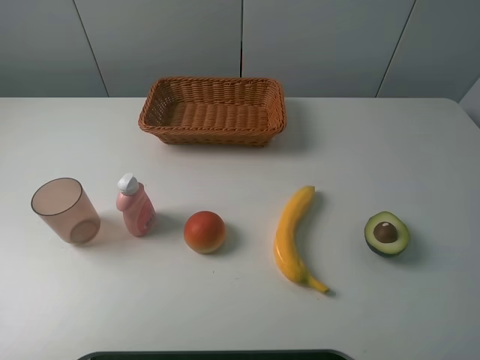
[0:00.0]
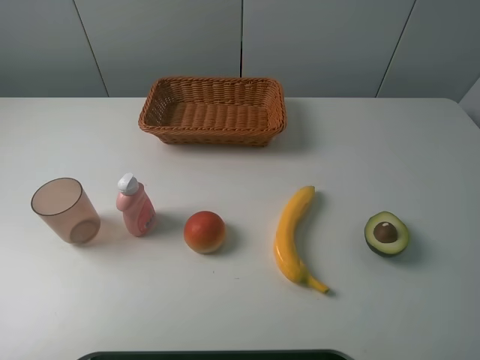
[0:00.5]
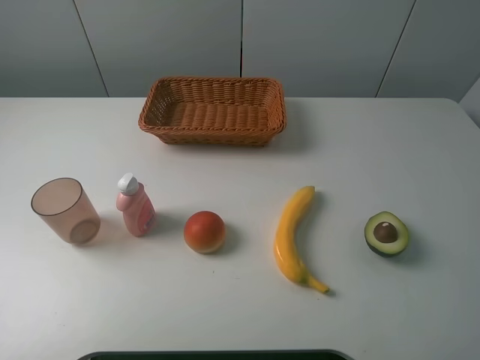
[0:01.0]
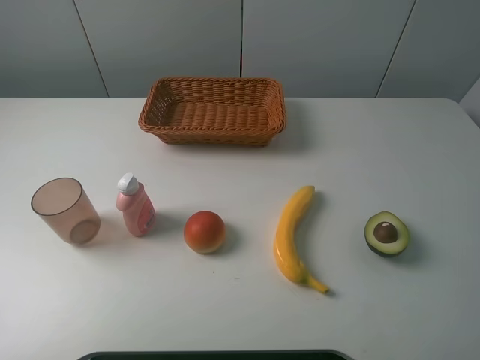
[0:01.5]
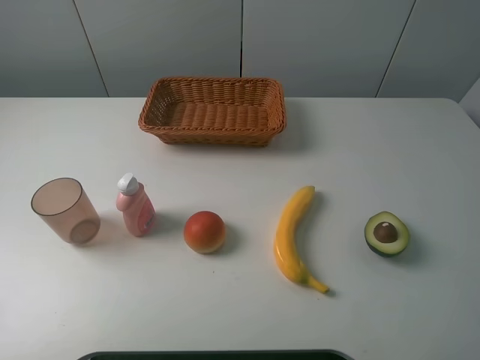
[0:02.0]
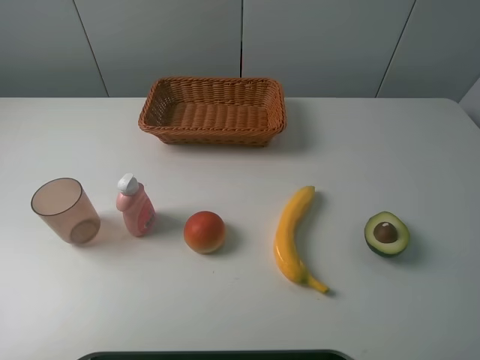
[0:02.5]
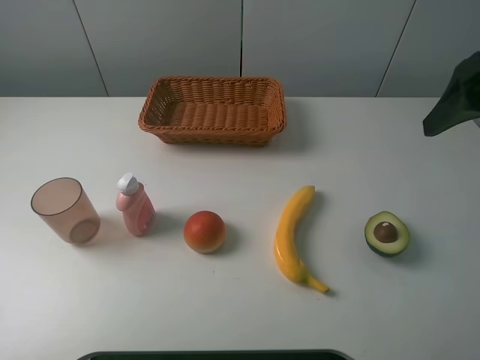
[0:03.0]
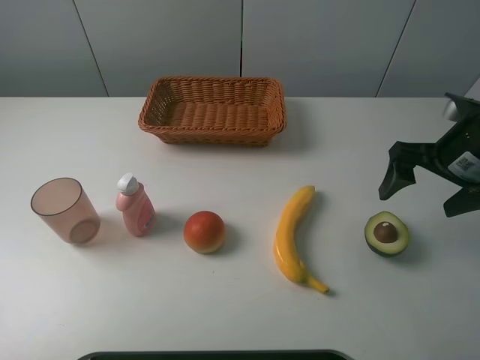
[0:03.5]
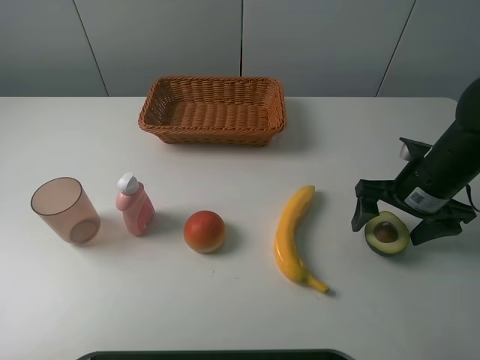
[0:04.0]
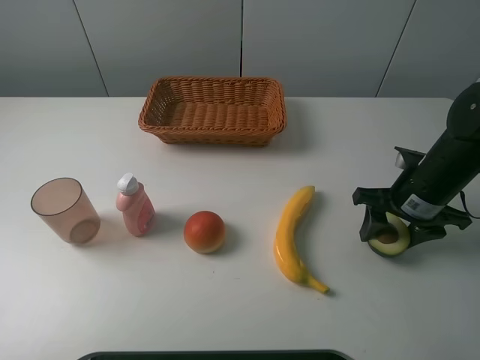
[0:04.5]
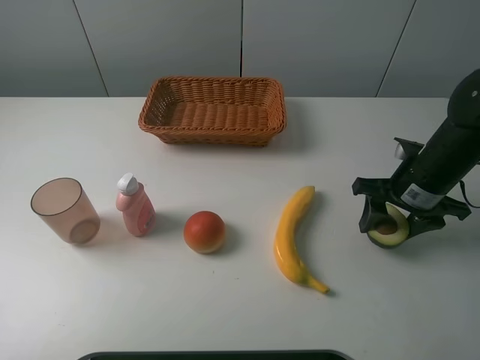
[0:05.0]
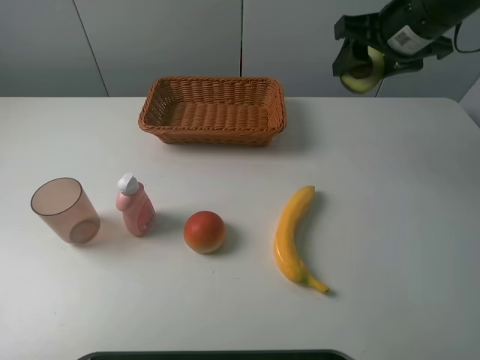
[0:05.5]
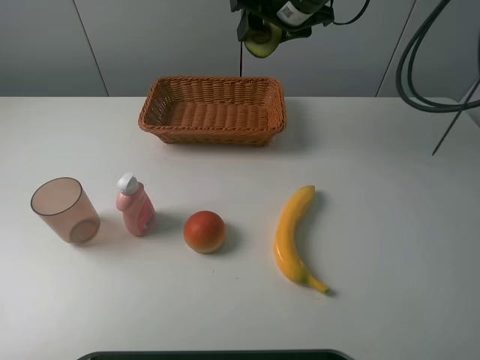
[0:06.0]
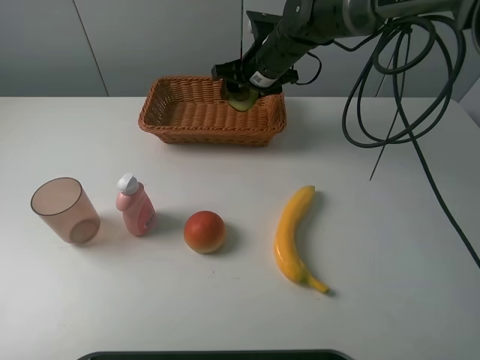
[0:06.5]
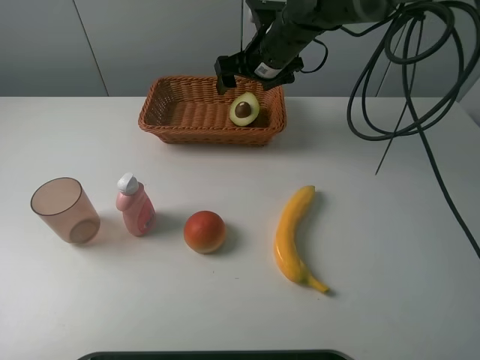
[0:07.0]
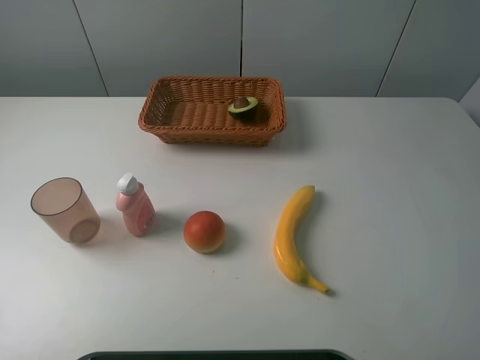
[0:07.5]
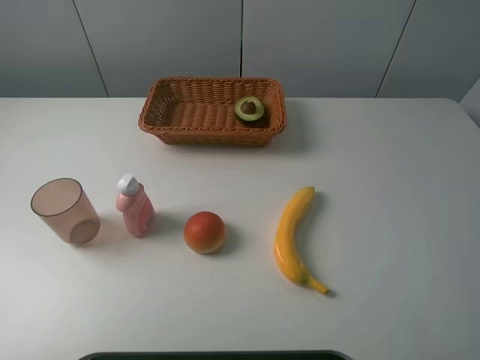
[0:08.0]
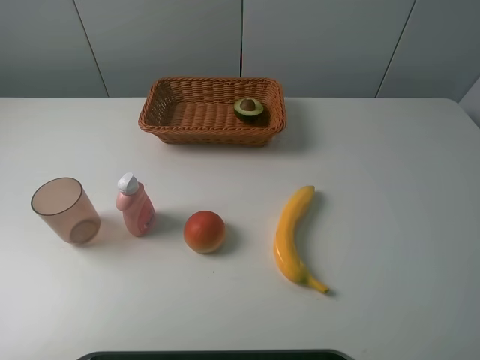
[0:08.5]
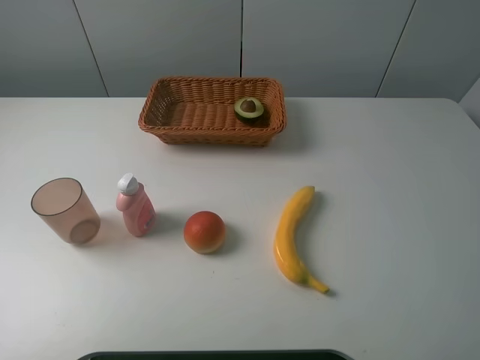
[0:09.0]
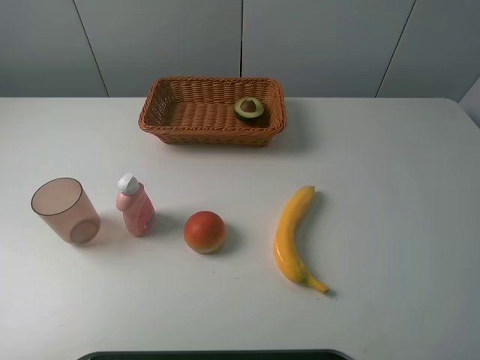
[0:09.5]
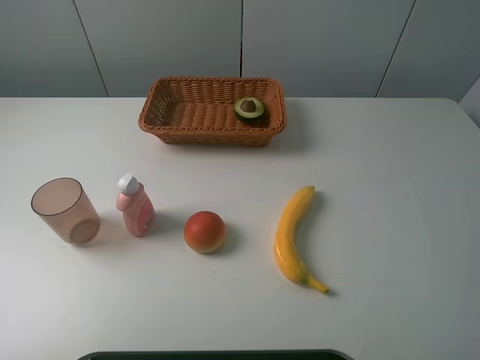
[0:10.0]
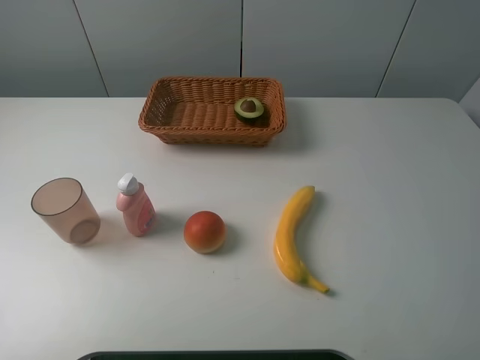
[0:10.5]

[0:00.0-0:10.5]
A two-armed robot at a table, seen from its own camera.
Task of the whole recording: randomly pick up an item from the table and put it in the basket.
Step, 0:00.0 to 0:04.5: Grasp the avocado with the right gripper.
Step, 0:05.0 to 0:07.0: Place the avocado into the basket with the right gripper.
0:00.0 to 0:02.0: Neither gripper changes place.
0:02.0 to 0:04.0: The right gripper shifts approximately 30 cm forward and downward.
0:04.0 to 0:06.5: The right gripper shifts approximately 30 cm to the left and forward, and closes its fingers.
0:06.5 to 0:08.5: The right gripper heads backward, upward and to the right, covering some 60 cm, and opens up.

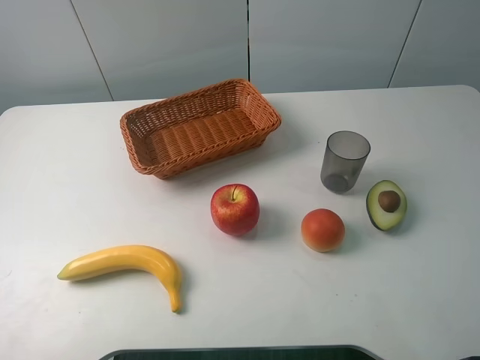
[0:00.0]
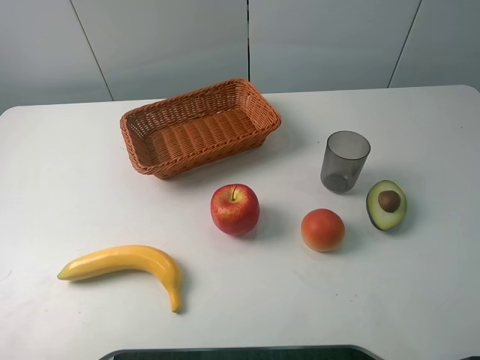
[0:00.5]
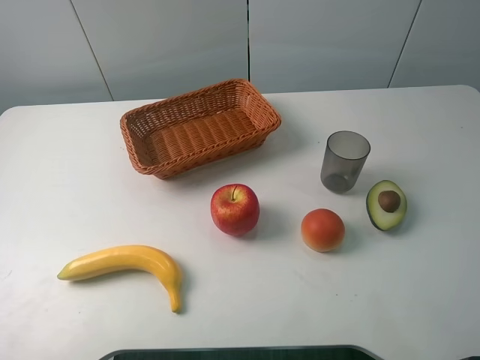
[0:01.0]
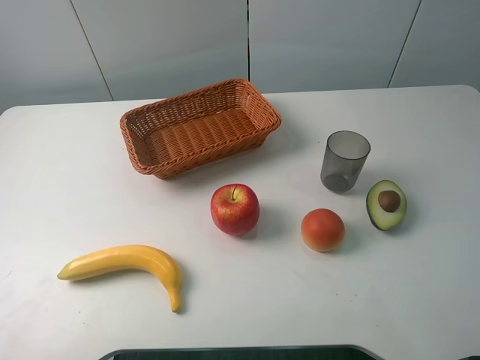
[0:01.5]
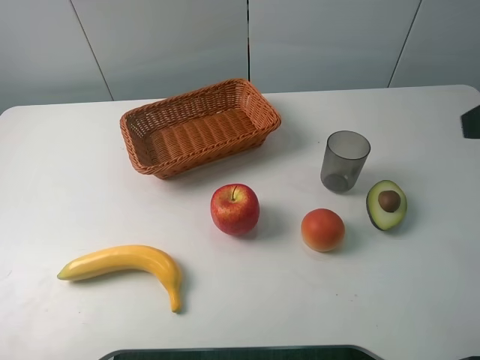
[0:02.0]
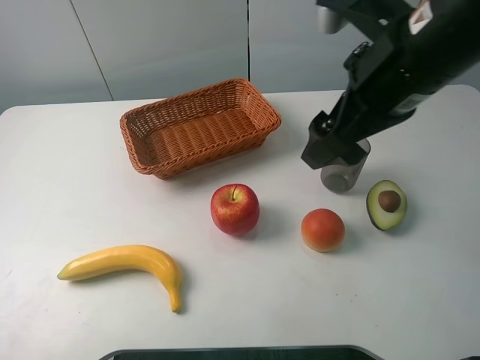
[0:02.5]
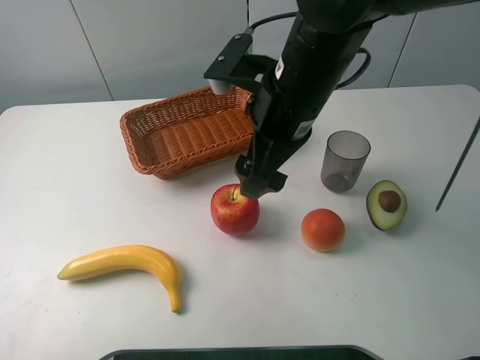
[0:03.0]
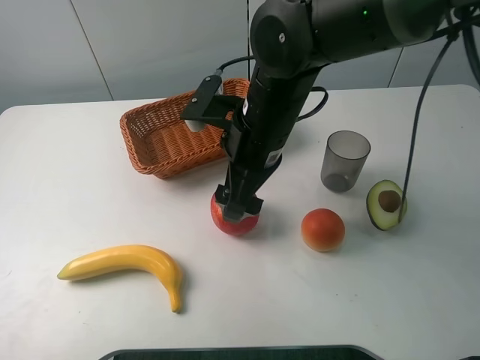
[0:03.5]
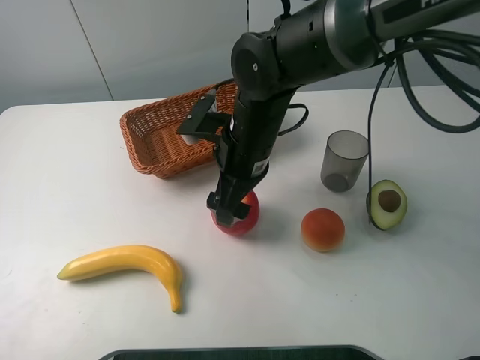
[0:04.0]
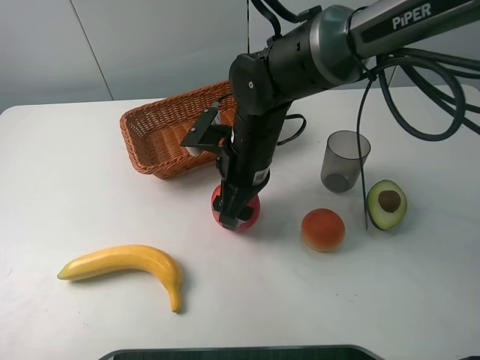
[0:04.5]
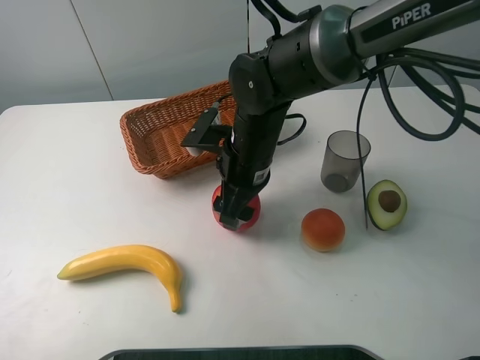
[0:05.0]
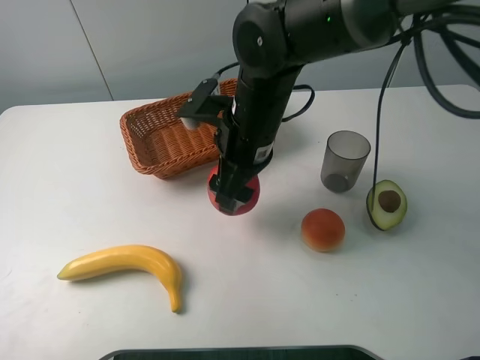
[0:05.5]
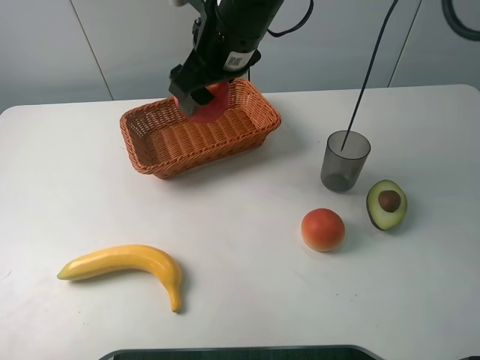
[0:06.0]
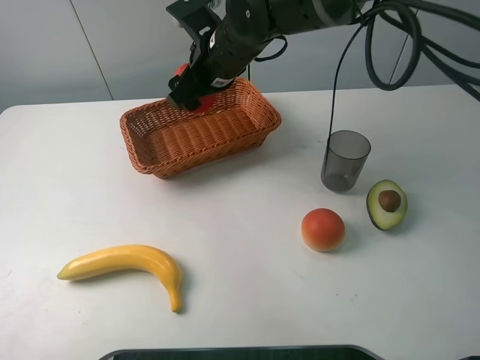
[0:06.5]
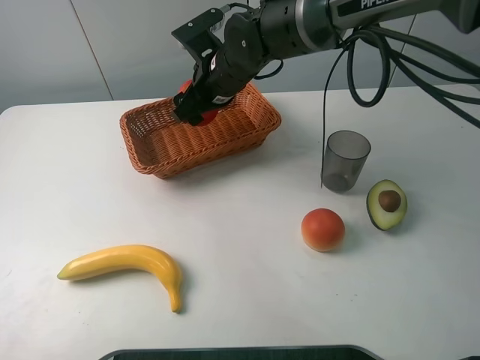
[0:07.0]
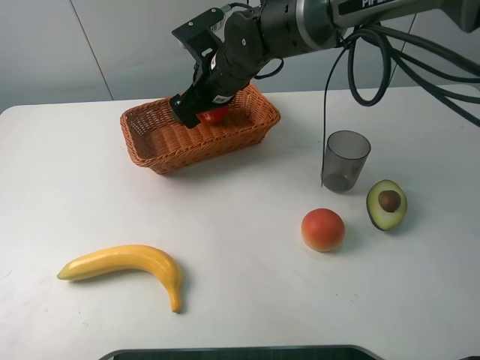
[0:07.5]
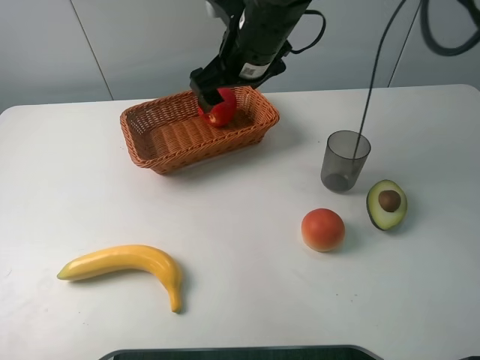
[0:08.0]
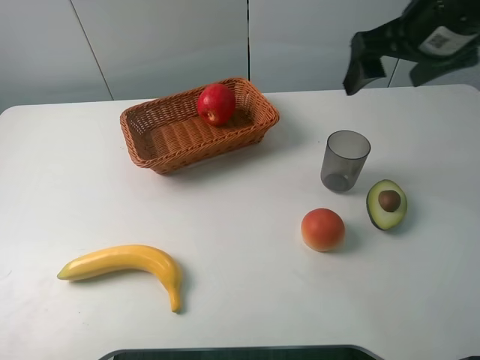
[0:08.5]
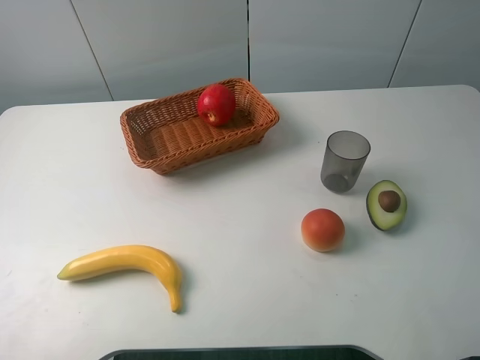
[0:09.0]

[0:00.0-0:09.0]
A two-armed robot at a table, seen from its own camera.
Task of the whole recording: randomly pick up an item from the table and put it in the basket.
Step, 0:00.0 to 0:04.5: Grasp the apple with the right gripper.
Step, 0:05.0 to 0:07.0: Place the apple into the basket with the right gripper.
0:02.0 to 0:04.5: The right gripper moves to the left, downward and forward, roughly 35 cm, and closes.
0:04.5 to 0:07.0: The right gripper heads forward, covering approximately 10 cm, and moves roughly 15 cm upward and comes back.
0:07.0 to 0:09.0: The right gripper shifts approximately 40 cm to the right, backward and upward, and opens.
